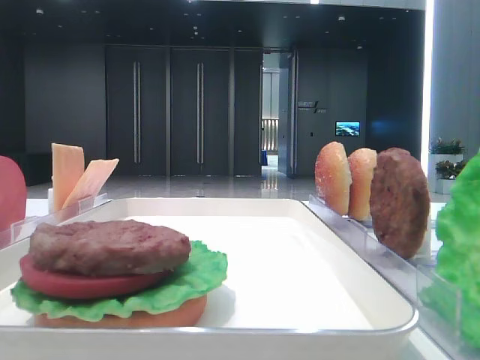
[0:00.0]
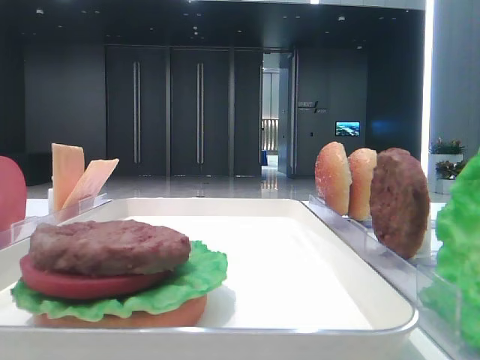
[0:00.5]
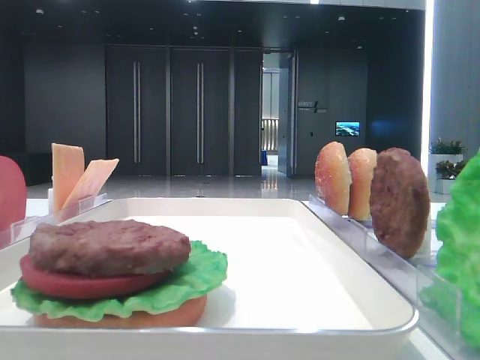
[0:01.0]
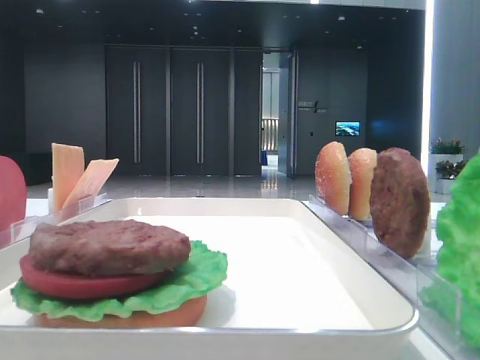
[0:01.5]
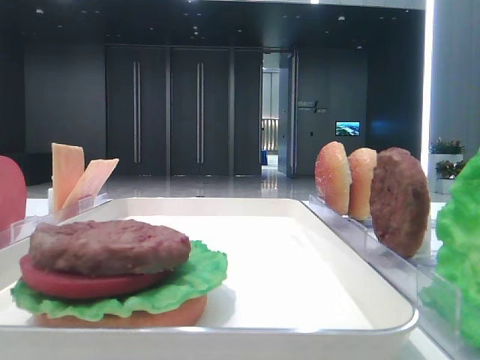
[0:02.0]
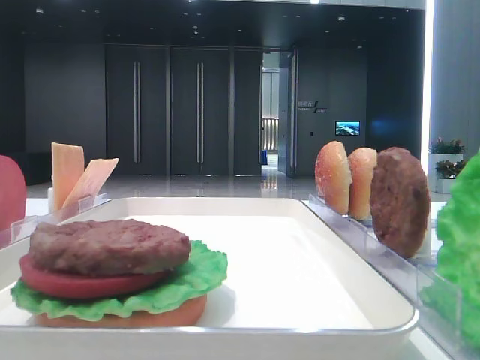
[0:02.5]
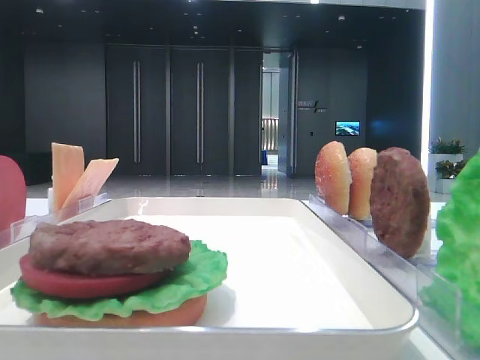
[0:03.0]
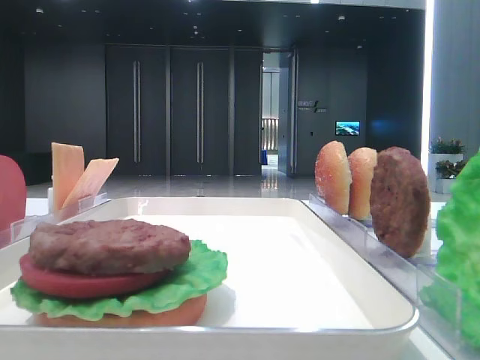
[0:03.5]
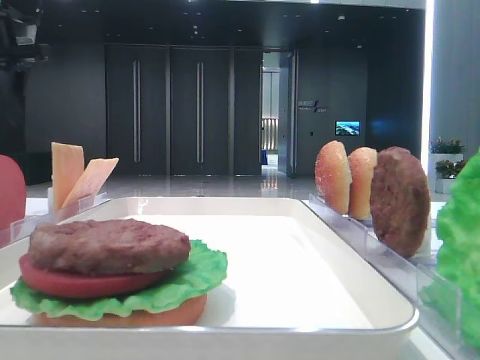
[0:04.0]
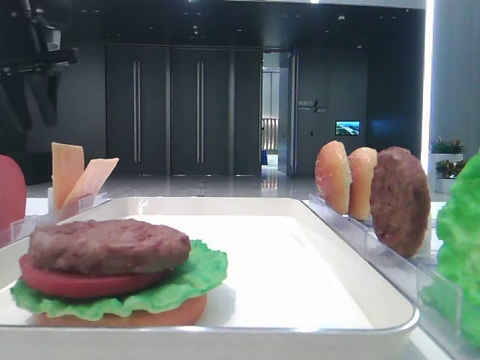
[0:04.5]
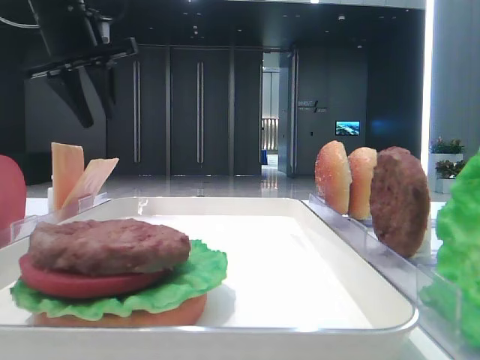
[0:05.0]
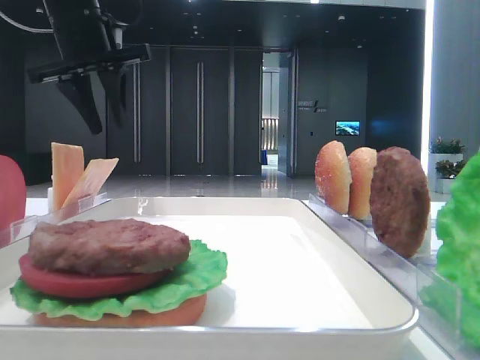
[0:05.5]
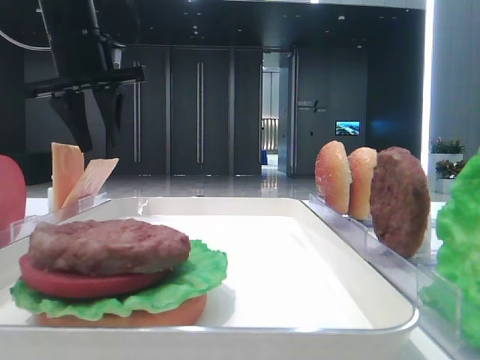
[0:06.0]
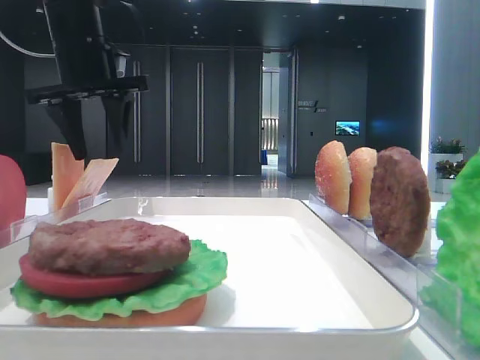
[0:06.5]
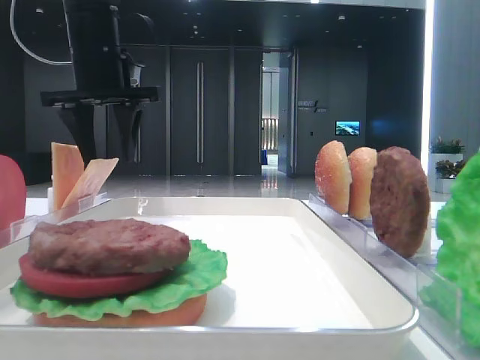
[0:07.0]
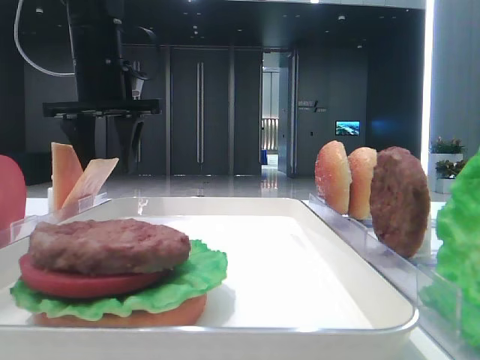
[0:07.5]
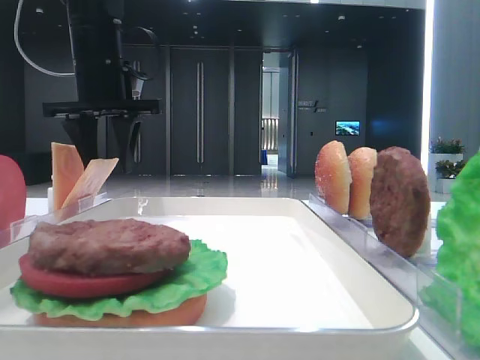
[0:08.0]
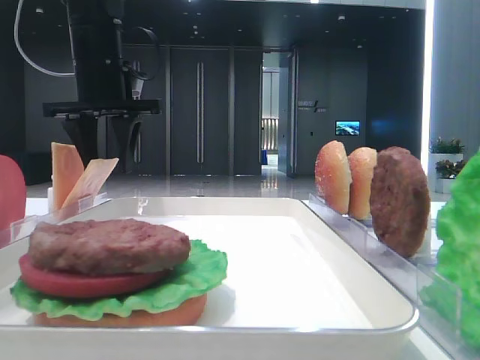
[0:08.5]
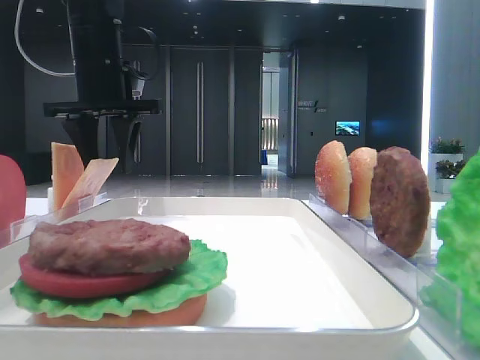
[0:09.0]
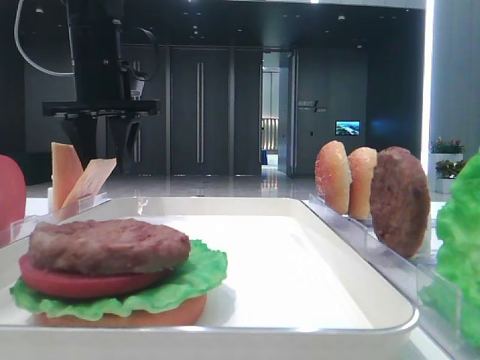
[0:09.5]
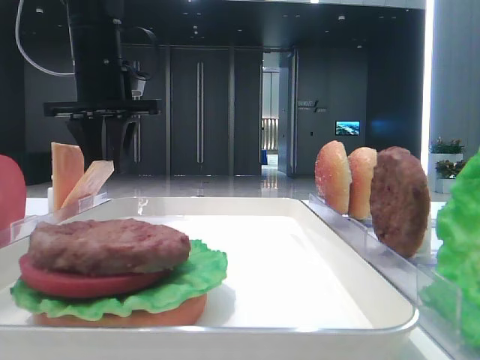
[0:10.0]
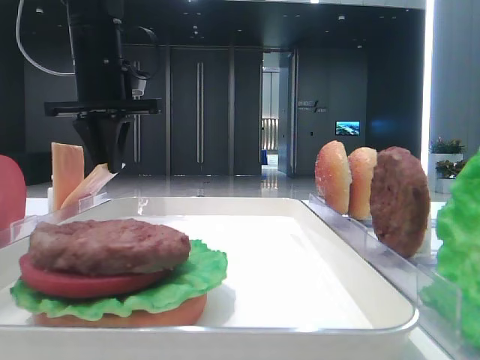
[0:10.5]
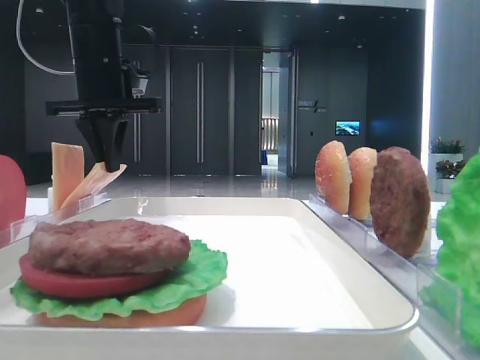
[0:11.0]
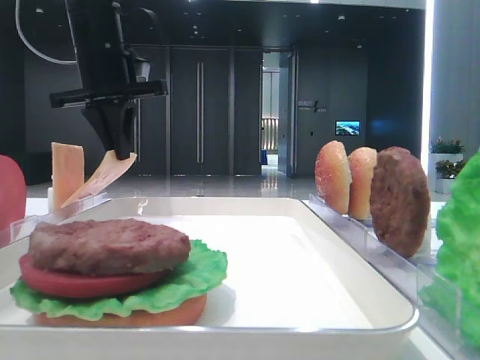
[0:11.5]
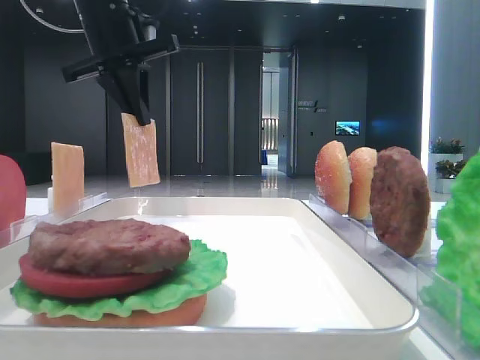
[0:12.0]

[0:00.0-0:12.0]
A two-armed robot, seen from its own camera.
Step, 0:00.0 to 0:11.0: Pick up the cheese slice with the left hand.
0:02.0 to 0:04.0: The left gripper goes approximately 30 cm forward.
0:04.0 to 0:06.0: The left gripper goes roughly 10 cm to the right.
0:06.0 to 0:08.0: There are only small adjustments of the grippers.
0:08.0 to 0:10.0: Neither gripper changes place.
0:10.0 to 0:12.0: The left gripper goes about 5 cm upward, and closes up.

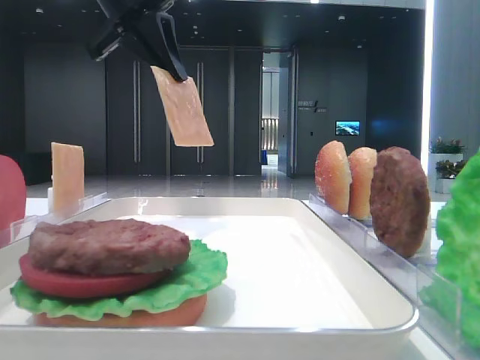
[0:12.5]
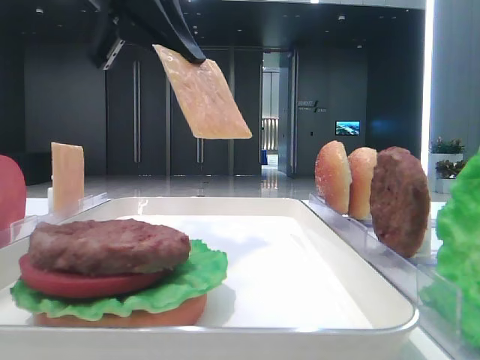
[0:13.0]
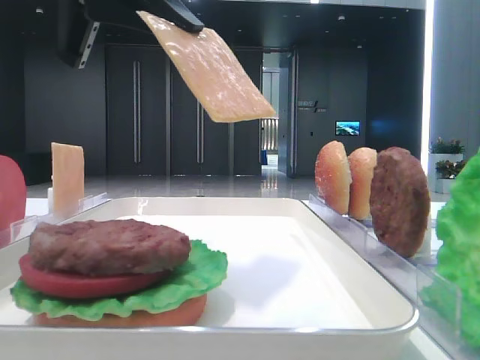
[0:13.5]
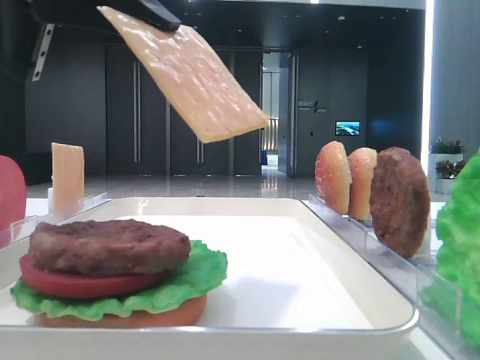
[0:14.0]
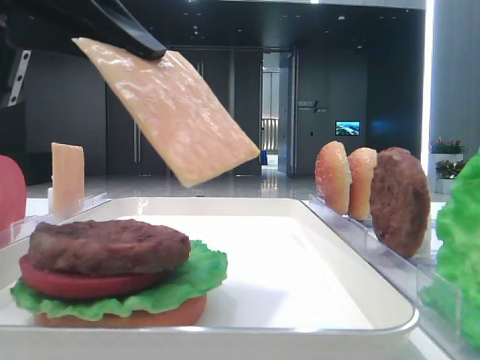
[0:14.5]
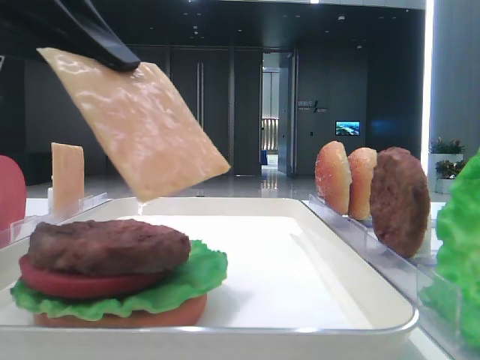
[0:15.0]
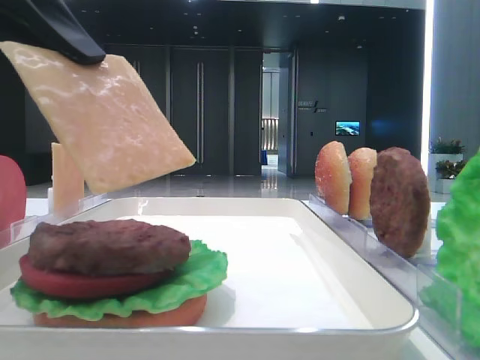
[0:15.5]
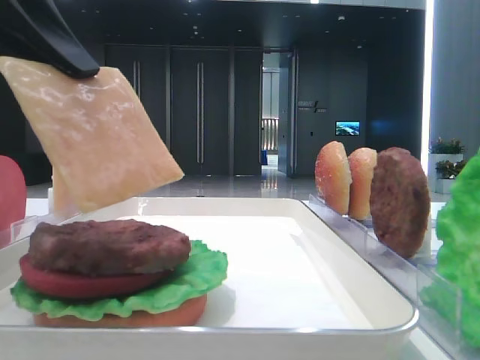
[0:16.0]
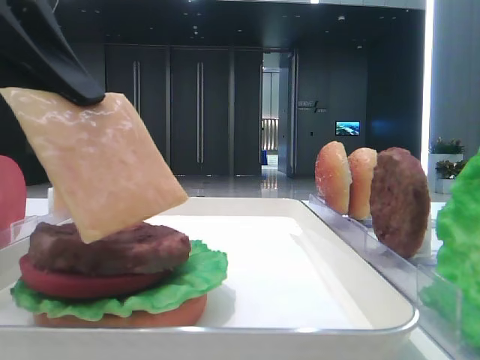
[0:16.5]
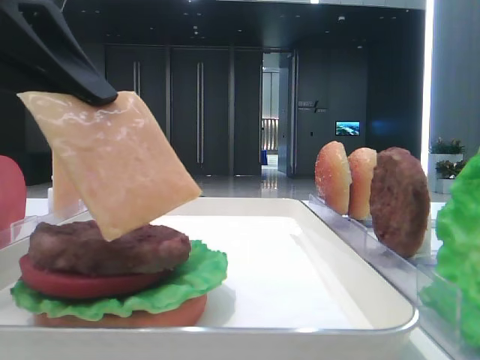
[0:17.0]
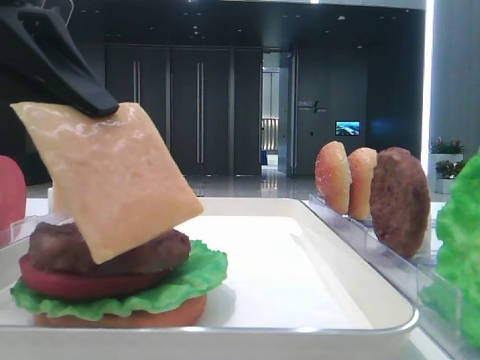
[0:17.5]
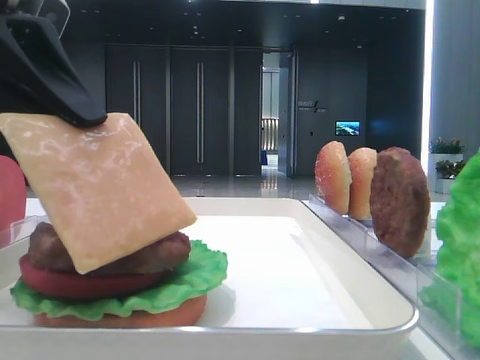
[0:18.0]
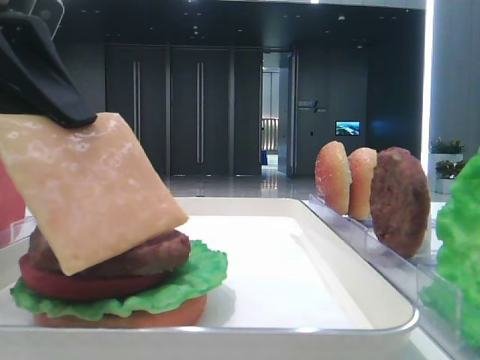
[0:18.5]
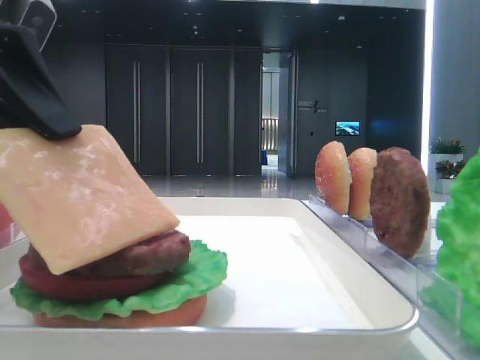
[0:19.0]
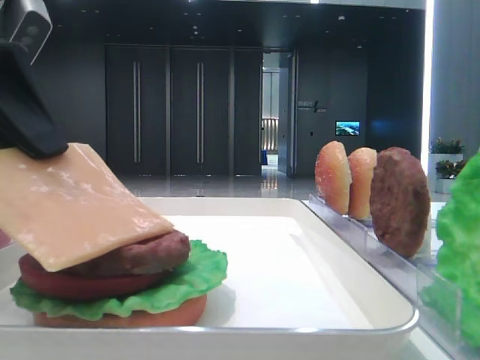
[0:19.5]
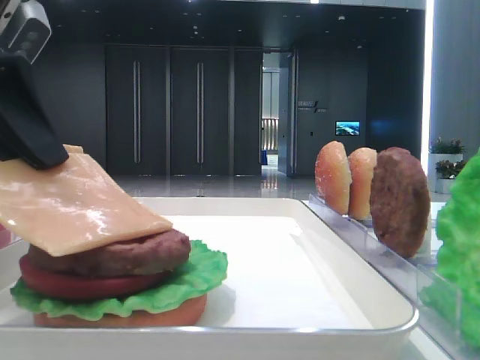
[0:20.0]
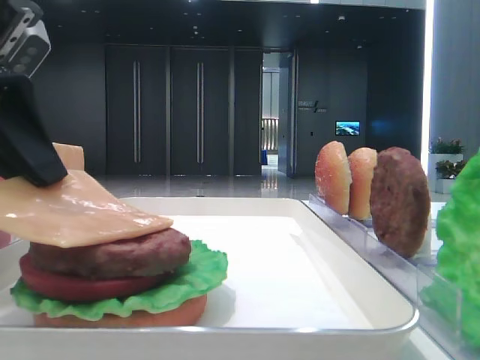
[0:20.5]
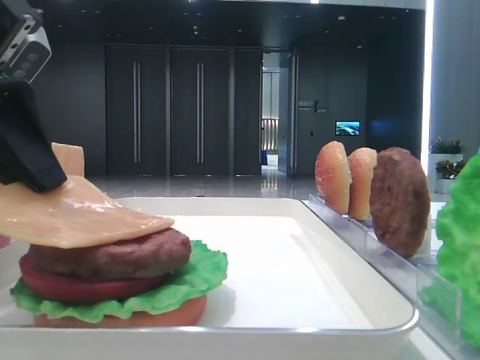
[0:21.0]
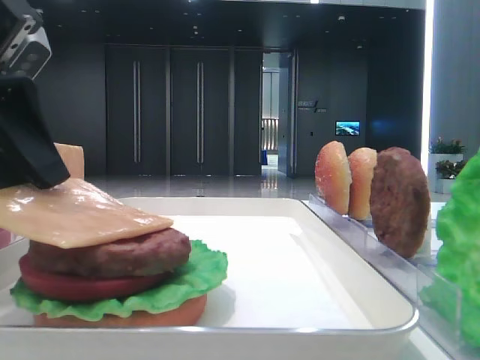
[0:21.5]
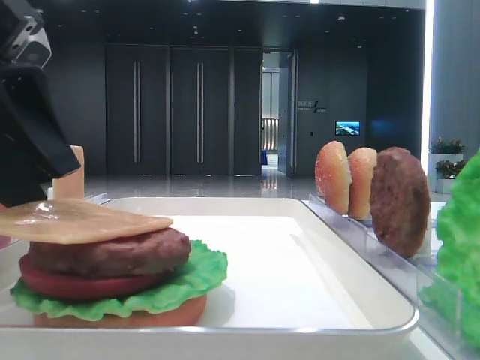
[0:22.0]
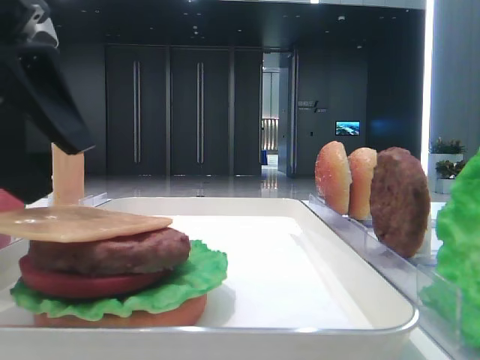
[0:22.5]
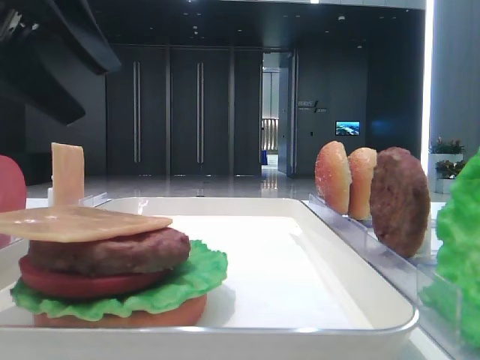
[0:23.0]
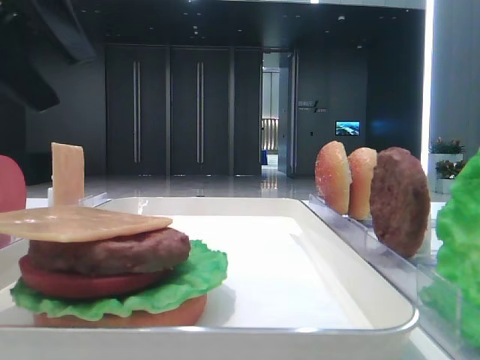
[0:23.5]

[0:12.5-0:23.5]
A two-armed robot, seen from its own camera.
Step, 0:12.5 to 0:22.0: Place the cheese slice on the patty with the left hand.
0:12.5 to 0:14.5: The left gripper goes about 20 cm backward and downward.
0:14.5 to 0:20.0: The grippers make only small movements.
0:20.0 to 0:21.5: Both grippers stay put.
0:21.5 to 0:23.5: The left gripper heads upward, covering some 5 cm, and opens.
